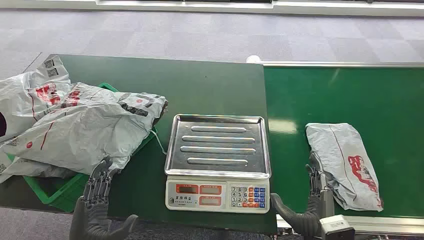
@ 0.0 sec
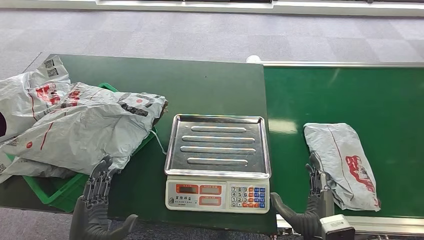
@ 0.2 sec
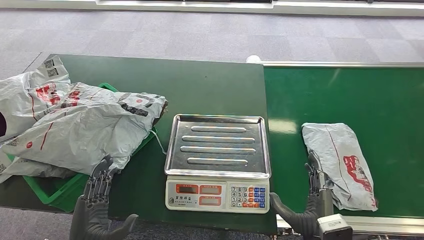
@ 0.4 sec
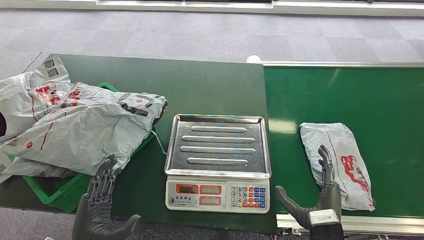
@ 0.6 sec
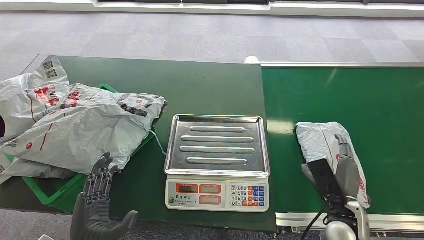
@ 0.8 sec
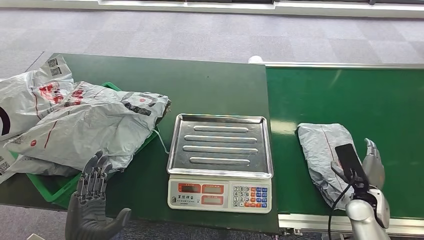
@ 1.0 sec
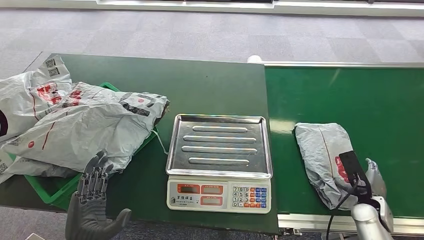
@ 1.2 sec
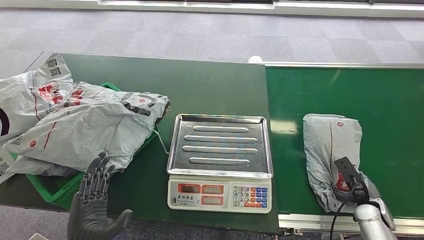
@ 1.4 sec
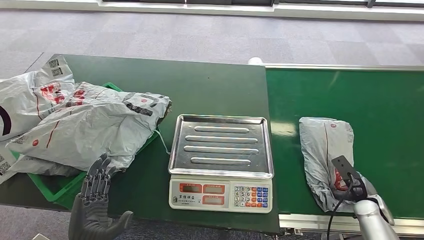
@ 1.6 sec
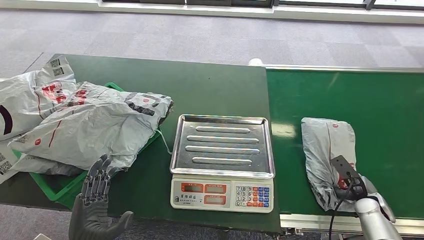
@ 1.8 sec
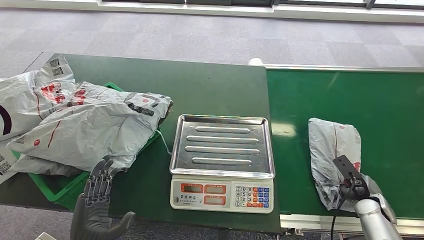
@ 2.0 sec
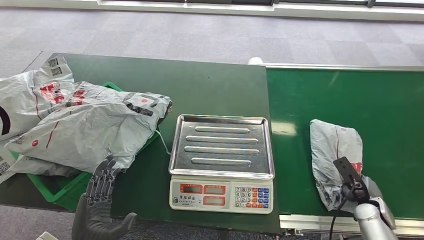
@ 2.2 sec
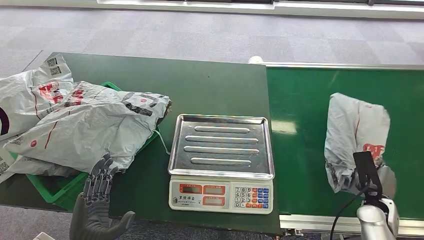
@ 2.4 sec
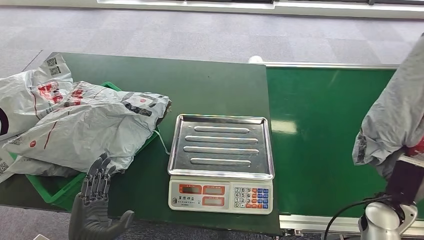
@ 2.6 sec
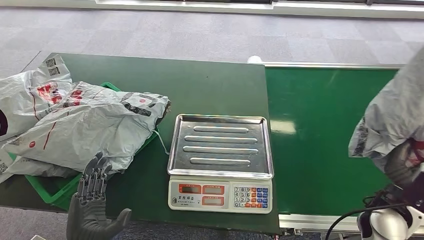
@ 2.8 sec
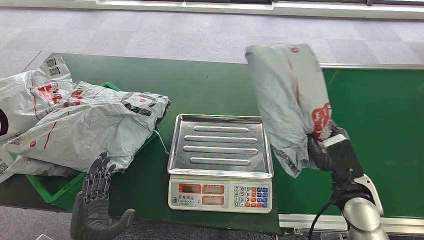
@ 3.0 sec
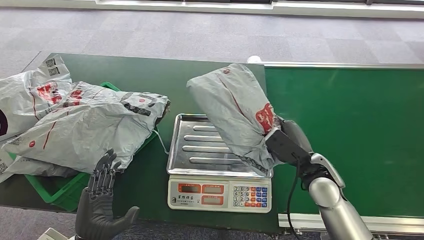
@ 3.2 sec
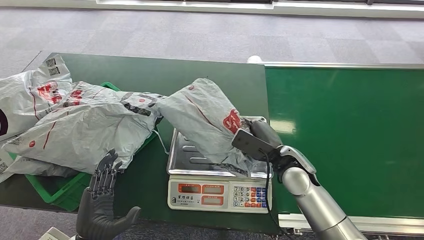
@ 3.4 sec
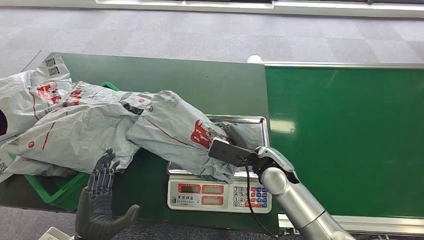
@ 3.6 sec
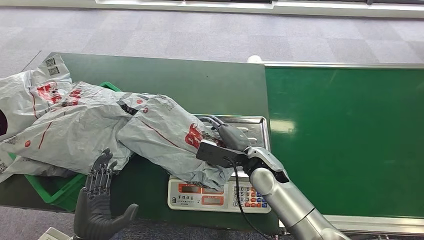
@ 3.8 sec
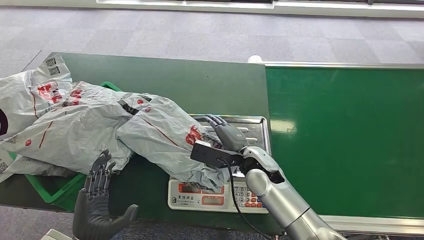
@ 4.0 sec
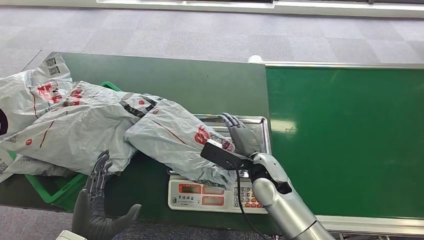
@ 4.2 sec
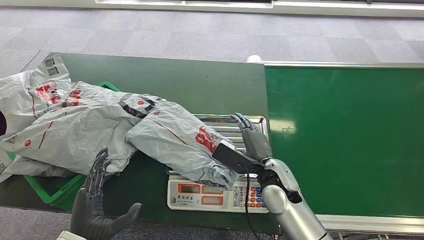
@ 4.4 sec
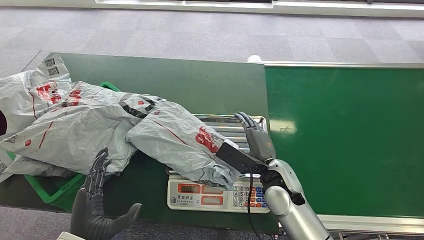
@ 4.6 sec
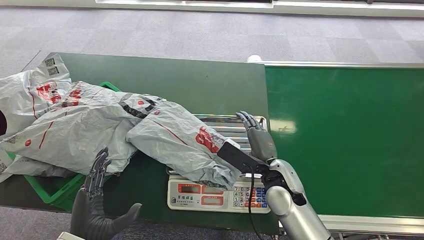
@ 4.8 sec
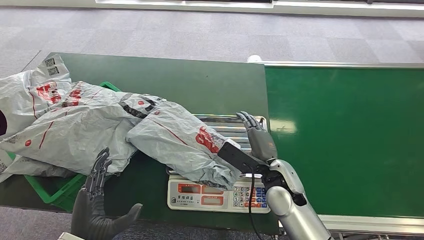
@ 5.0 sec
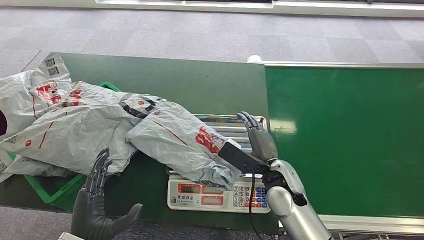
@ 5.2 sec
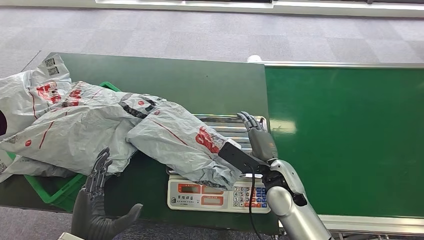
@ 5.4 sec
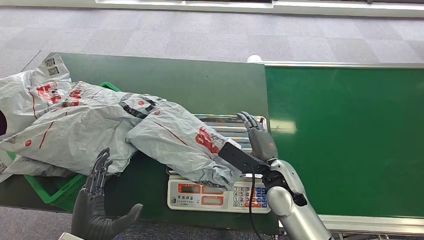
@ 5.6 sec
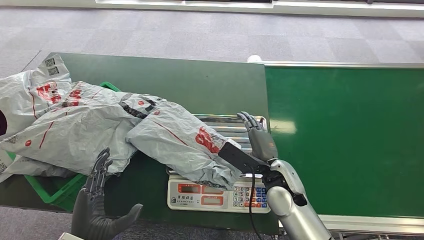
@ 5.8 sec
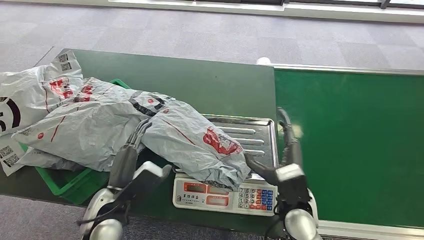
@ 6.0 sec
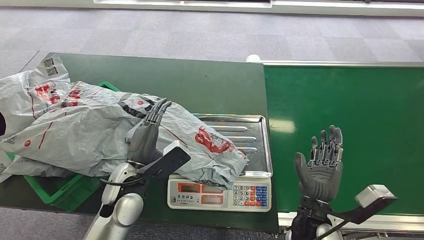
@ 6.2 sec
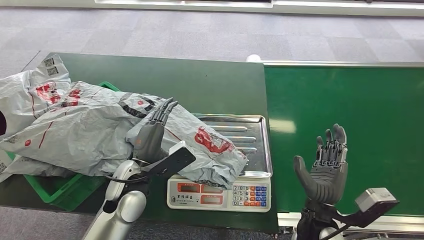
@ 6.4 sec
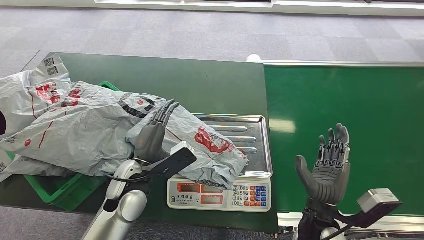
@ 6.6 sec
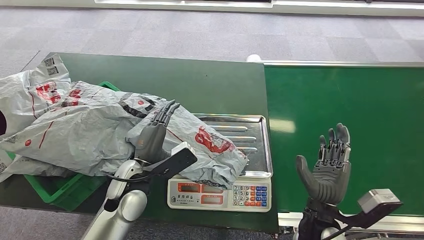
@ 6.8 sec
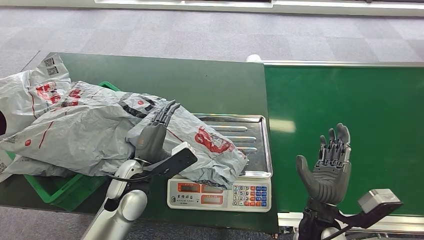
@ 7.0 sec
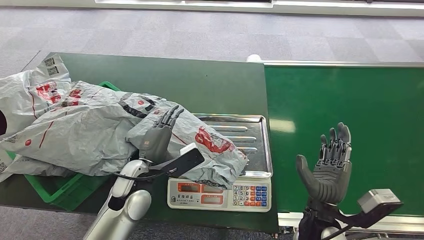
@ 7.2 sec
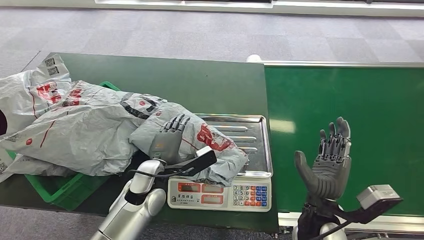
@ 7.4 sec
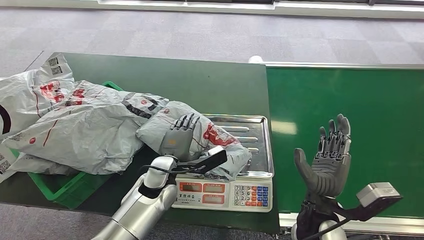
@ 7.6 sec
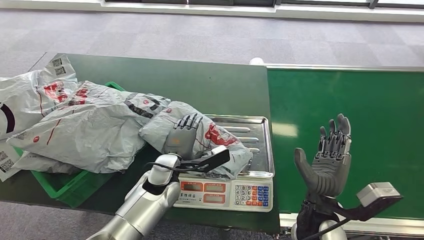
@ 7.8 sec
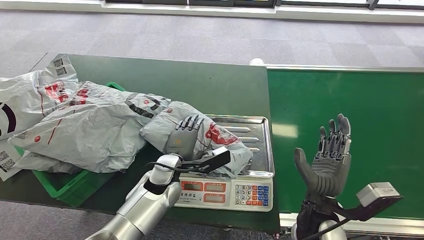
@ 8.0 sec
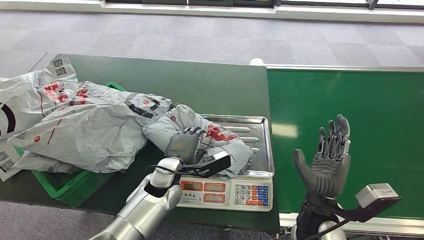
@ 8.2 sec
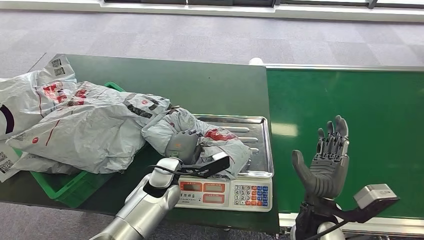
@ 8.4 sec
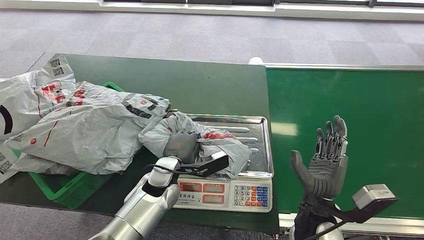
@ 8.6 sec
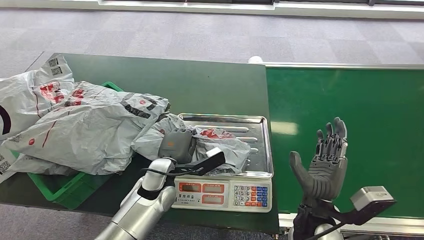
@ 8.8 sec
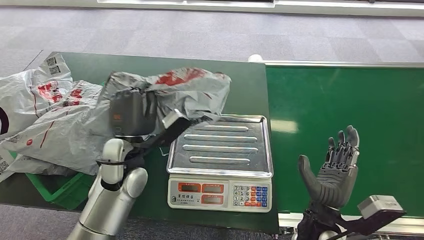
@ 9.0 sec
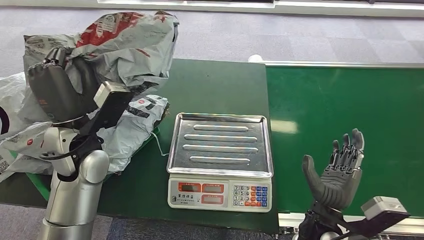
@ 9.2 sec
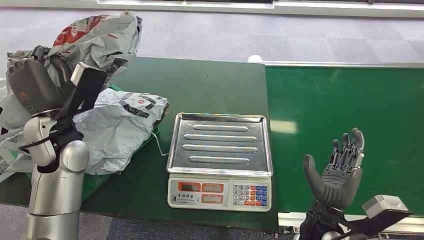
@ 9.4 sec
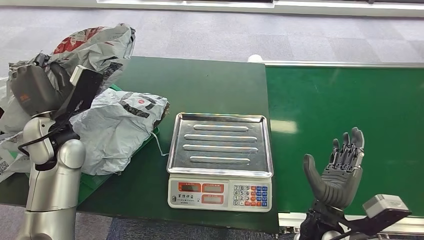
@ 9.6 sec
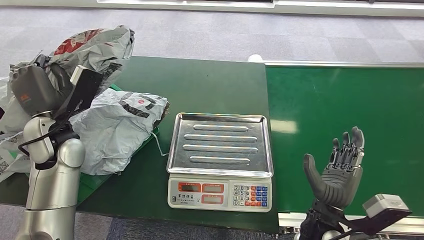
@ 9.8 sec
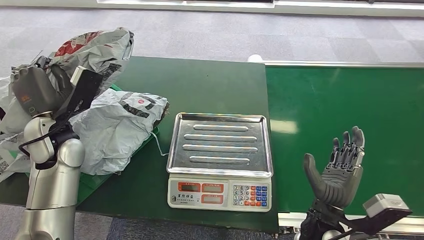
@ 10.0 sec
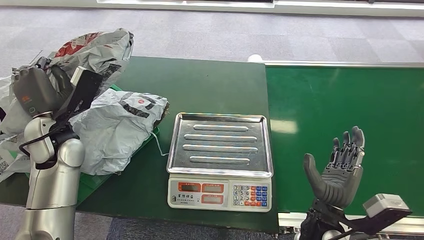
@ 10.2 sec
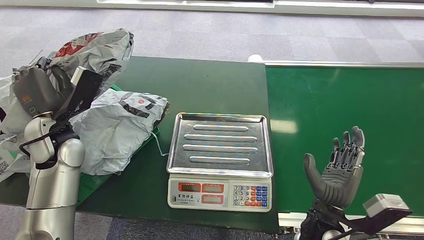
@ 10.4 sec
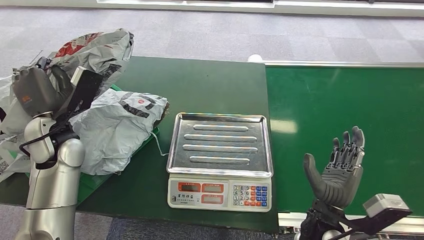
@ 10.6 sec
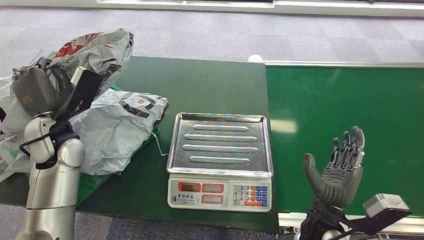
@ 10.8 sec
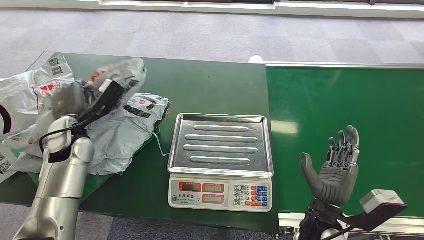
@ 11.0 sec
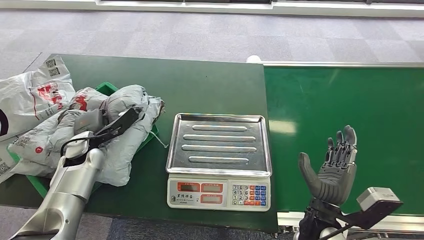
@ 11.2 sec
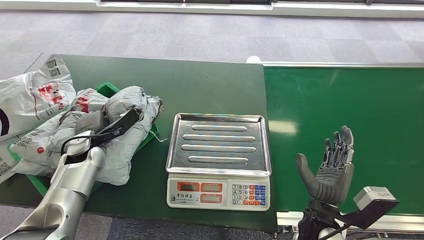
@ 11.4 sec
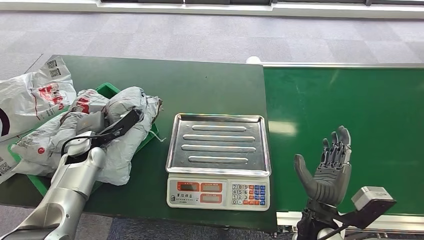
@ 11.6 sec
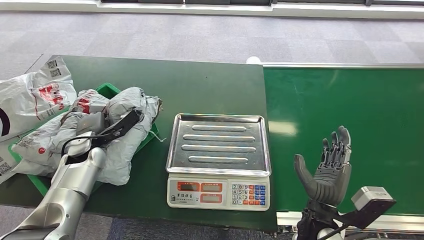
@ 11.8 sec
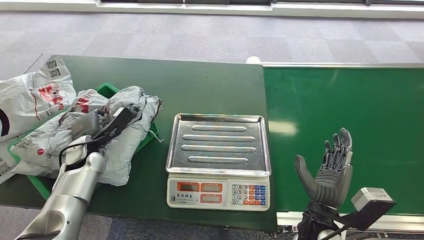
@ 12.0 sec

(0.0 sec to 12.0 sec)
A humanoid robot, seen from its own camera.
Step, 0.0 sec - 2.8 sec: Pick up the package from the conveyor belt.
Step, 3.0 sec - 5.0 sec: Place the package onto the inbound machine.
Step, 5.2 sec - 9.2 sec: Pick up the package from the inbound machine.
Step, 9.6 sec - 12.0 sec: Place the package into the parcel locker.
